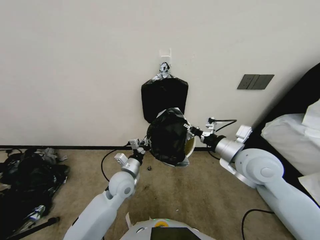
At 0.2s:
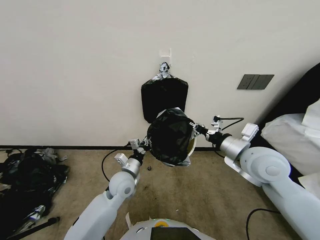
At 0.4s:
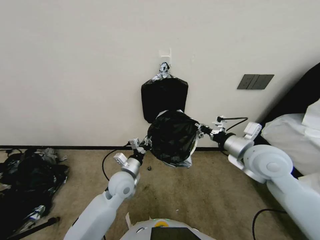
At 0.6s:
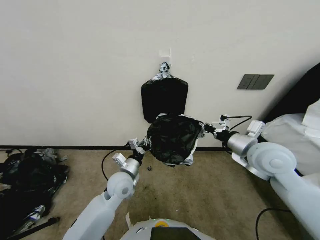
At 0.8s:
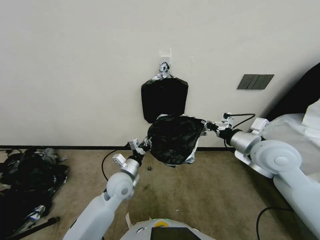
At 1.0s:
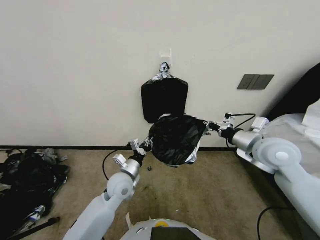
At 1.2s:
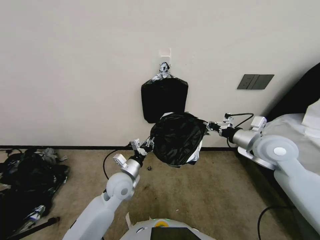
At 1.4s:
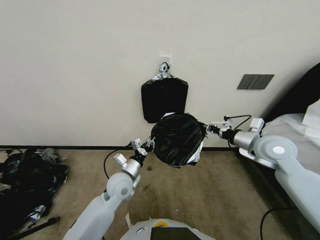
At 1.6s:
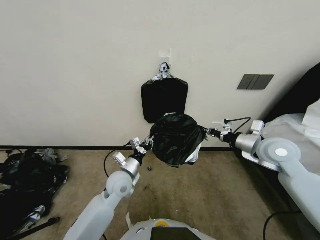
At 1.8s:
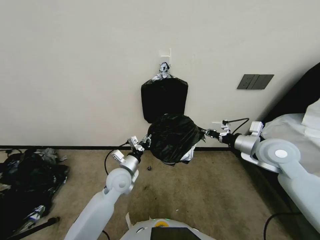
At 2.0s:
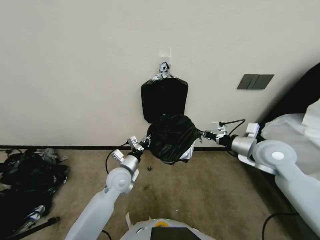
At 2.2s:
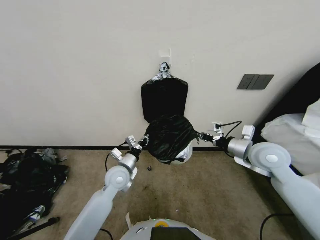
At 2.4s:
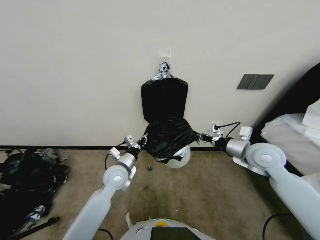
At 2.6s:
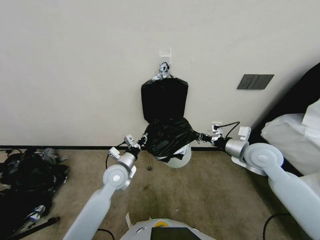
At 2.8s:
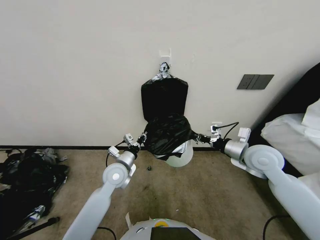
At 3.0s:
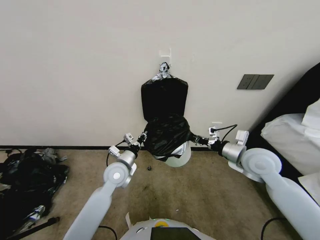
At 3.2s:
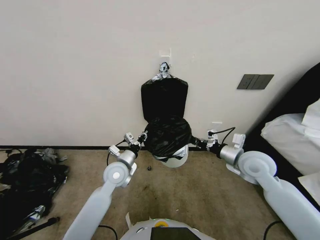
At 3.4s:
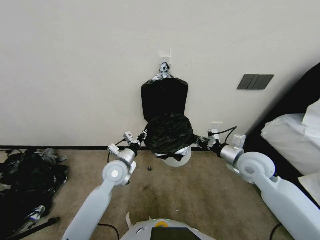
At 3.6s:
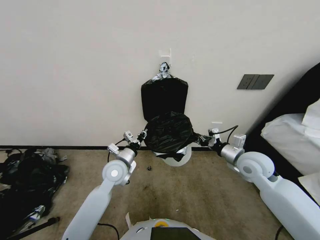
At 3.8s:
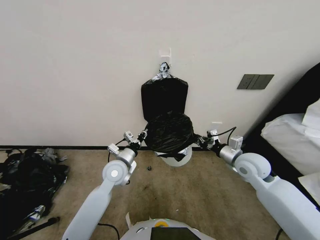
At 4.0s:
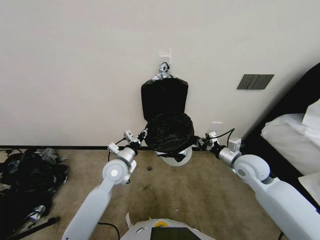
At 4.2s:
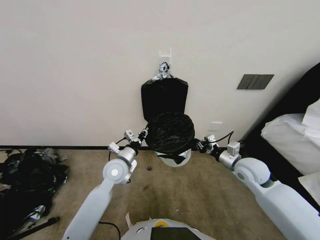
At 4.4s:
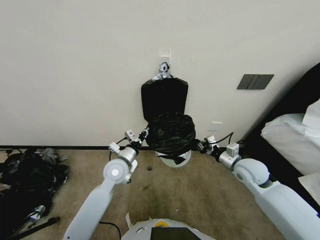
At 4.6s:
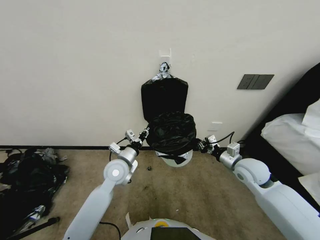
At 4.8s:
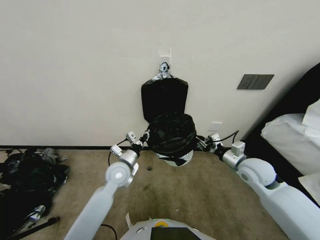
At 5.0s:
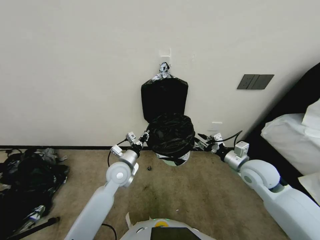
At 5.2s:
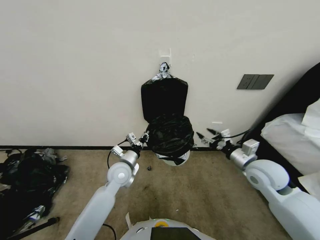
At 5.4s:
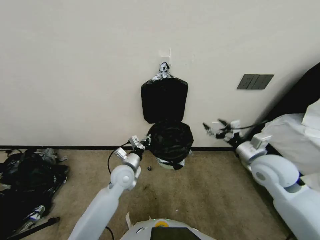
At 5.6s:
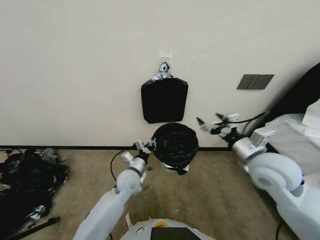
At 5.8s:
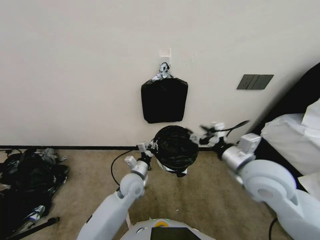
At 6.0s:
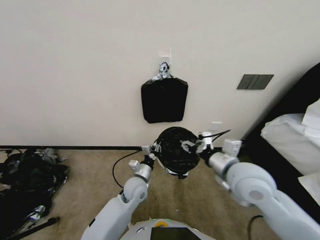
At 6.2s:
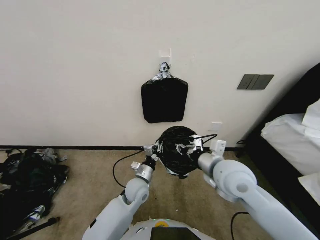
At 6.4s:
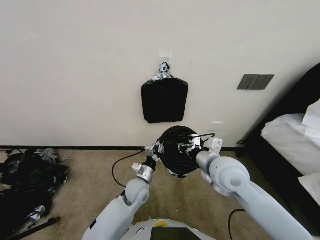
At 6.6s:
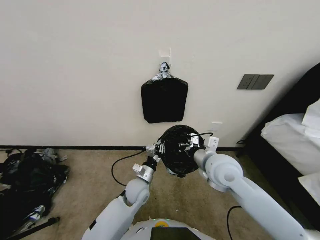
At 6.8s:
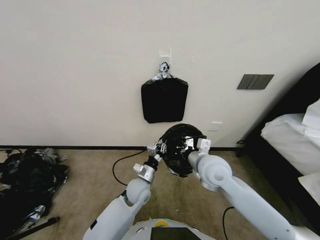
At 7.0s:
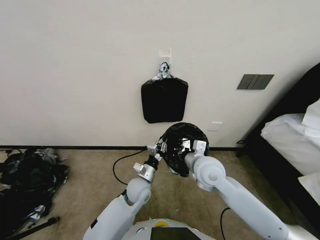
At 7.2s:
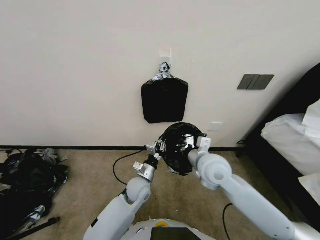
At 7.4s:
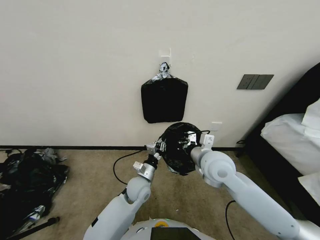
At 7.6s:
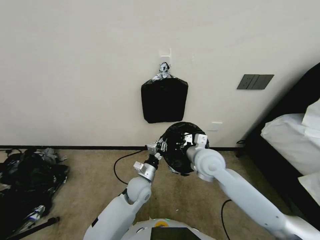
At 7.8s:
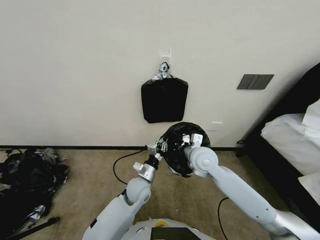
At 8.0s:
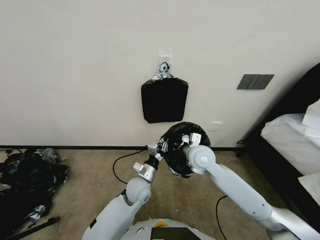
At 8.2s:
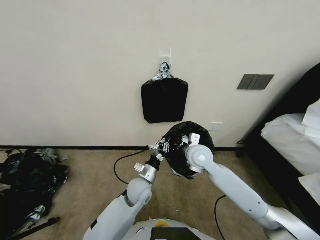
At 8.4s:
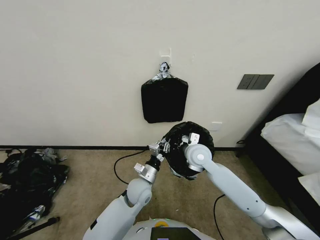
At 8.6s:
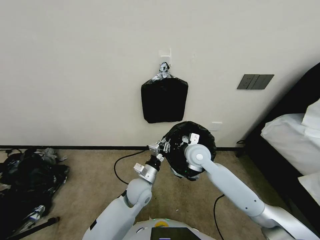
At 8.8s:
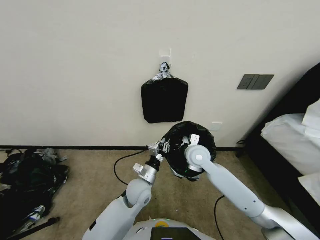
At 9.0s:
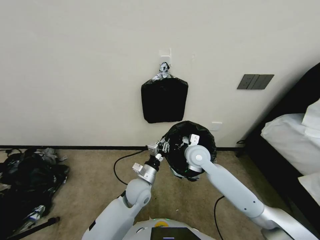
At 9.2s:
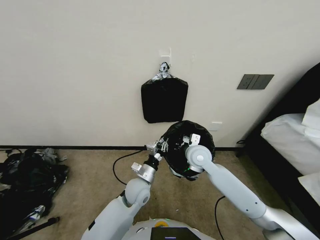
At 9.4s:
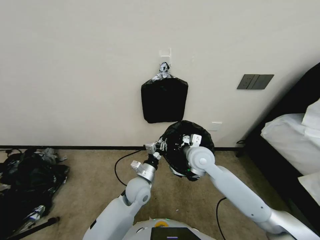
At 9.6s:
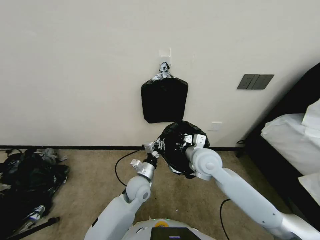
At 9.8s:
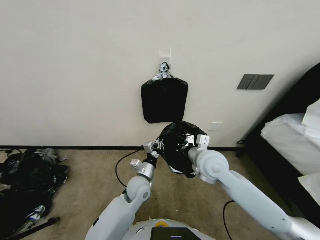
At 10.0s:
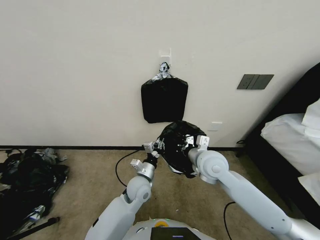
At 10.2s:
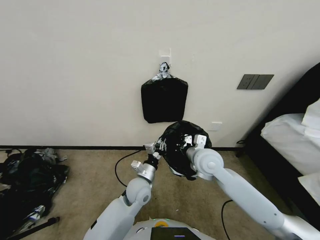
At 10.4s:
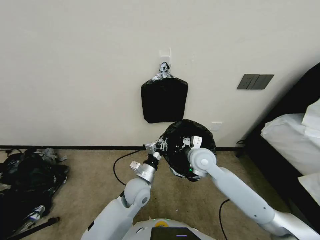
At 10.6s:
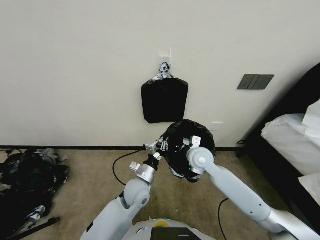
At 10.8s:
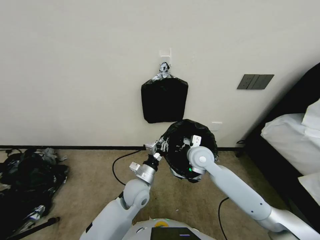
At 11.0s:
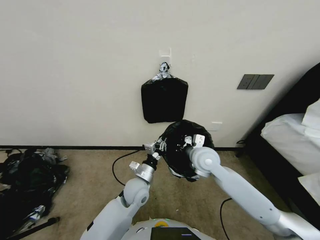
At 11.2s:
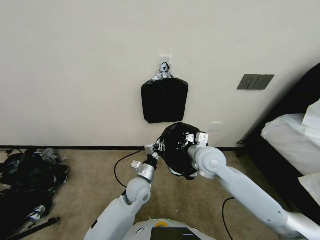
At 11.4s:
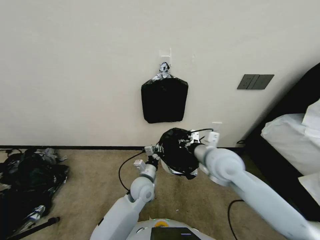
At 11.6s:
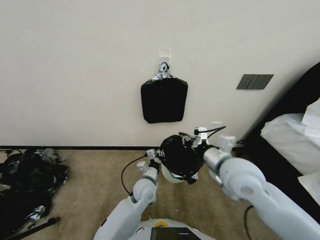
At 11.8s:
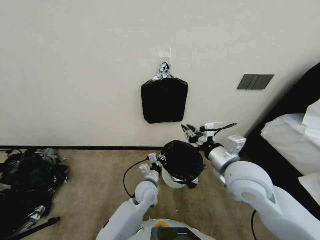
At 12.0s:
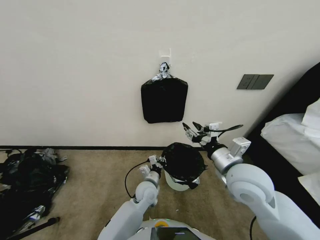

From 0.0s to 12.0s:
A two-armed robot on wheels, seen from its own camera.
Task of the whole recording: Place a trash bag onto the trash bin.
From 0.0s to 1.6s: The right gripper shifts roughly 15 cm to the right and forward.
From 1.6s to 3.0s: The right gripper changes place by about 5 cm.
From 3.0s to 4.4s: The right gripper is displaced downward by some 5 cm.
From 4.4s to 6.0s: The right gripper moves upward, to the left and backward, roughly 15 cm, and opens up. Meanwhile the left gripper goes approximately 10 cm downward and to the right.
From 6.0s to 7.6s: The right gripper shifts roughly 10 cm forward and to the left, and closes its fingers.
From 7.6s to 9.0s: The right gripper shifts about 10 cm forward and downward.
From 10.4s to 12.0s: The right gripper is displaced backward, upward and to the right by some 15 cm, and opens up; the left gripper moves downward, roughly 5 cm.

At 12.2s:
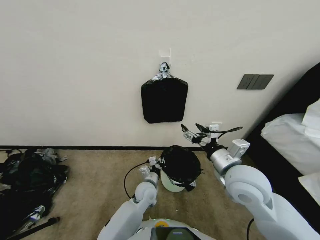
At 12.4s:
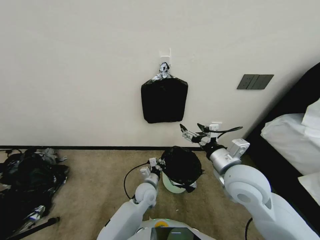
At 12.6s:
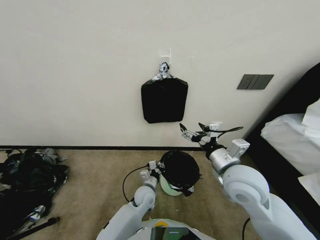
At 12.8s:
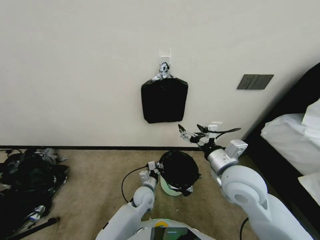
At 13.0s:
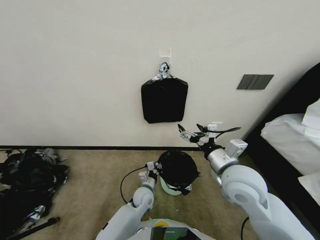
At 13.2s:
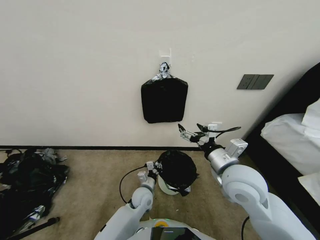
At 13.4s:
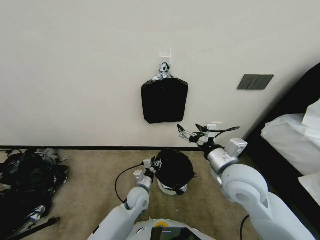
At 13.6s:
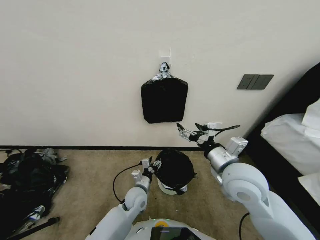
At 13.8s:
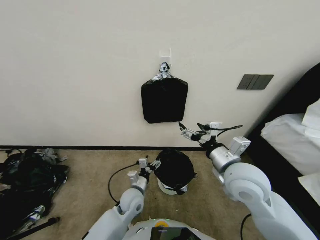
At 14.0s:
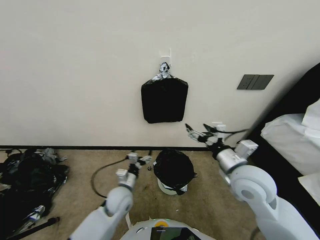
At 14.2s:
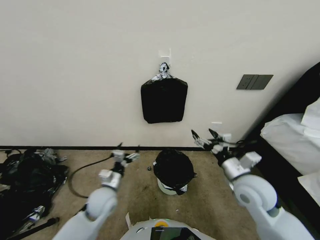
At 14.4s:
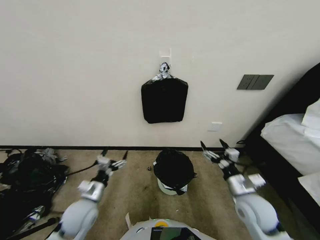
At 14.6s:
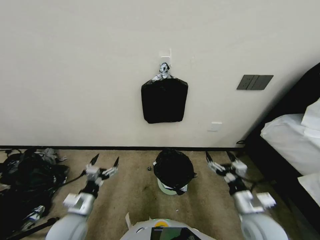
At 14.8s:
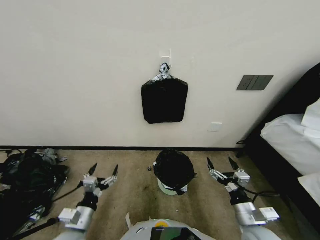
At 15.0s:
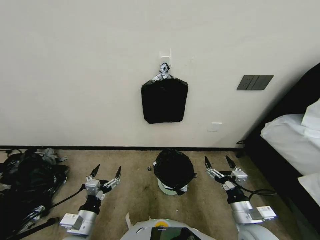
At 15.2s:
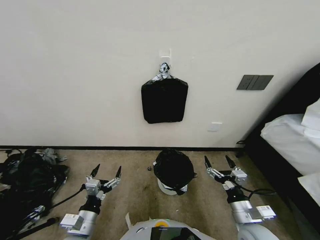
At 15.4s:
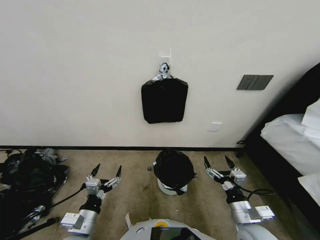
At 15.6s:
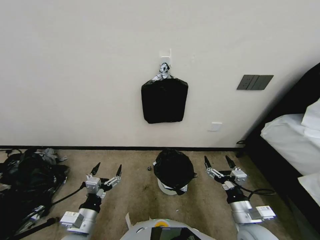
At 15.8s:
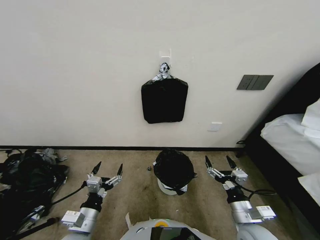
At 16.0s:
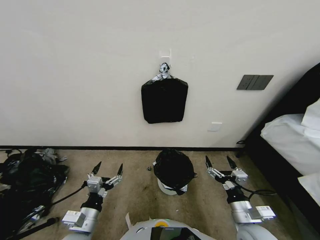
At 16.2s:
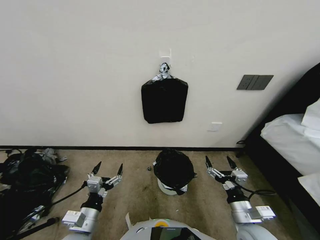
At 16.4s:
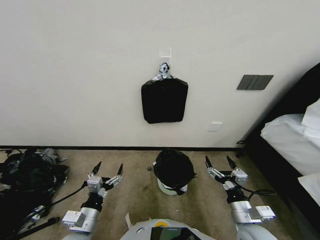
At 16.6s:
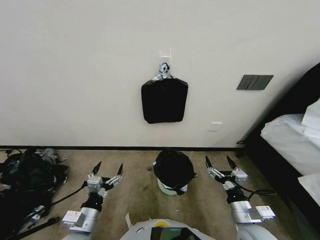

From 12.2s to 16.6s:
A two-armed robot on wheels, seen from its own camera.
Task of the whole recording: Place a trash bag onto the trash bin.
From 12.2s to 13.6s: The left gripper opens its fingers.
From 13.6s to 15.2s: The right gripper heads downward, backward and to the right, covering about 20 cm, while the left gripper travels backward, to the left and upward by approximately 25 cm, and opens up.
From 15.2s to 16.6s: Both grippers stay about where they are.
